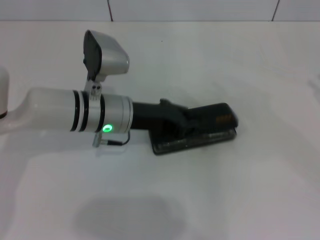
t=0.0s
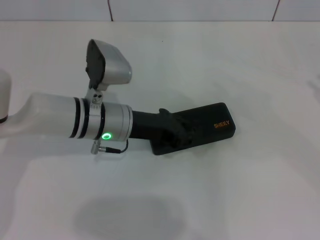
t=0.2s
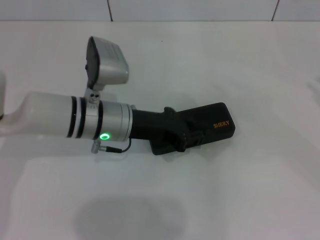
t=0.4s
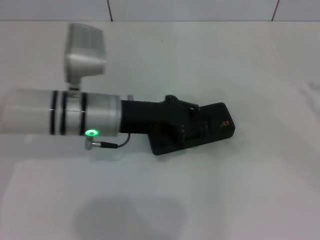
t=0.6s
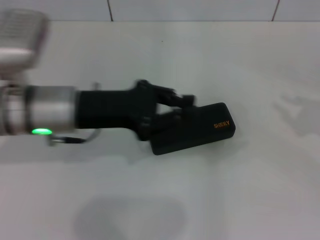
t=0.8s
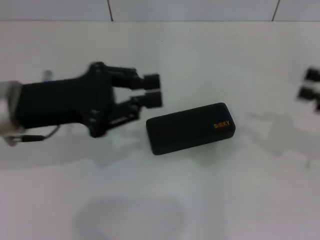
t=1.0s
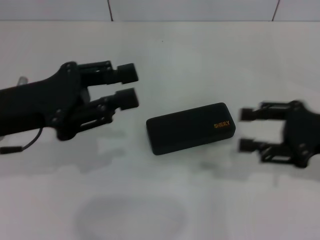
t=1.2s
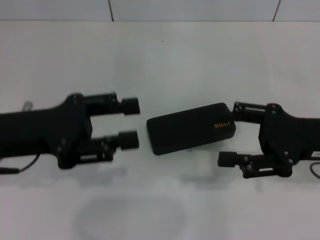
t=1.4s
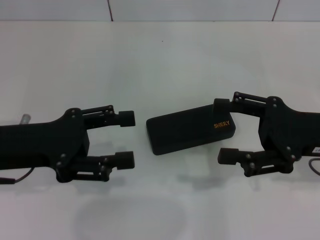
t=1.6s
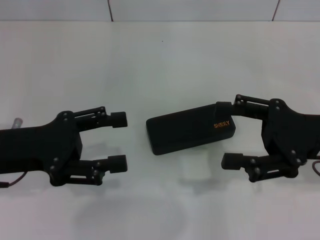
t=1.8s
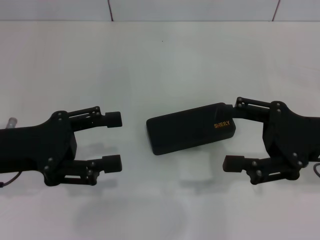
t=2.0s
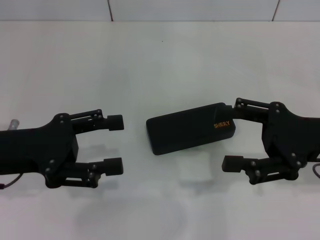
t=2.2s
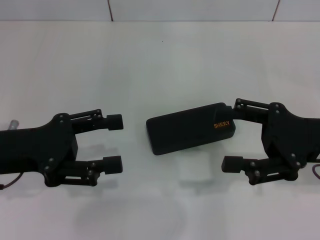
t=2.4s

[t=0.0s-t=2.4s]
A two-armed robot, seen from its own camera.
t=0.0s to t=1.2s: The left gripper goes roughly 15 cm to the left, upward and backward. The right gripper goes approximately 15 cm to the left.
t=1.2s to t=2.4s: The left gripper opens. The right gripper opens its fingers.
